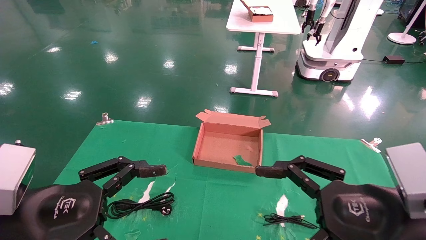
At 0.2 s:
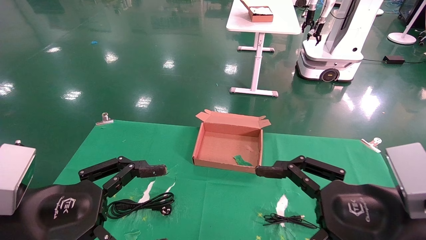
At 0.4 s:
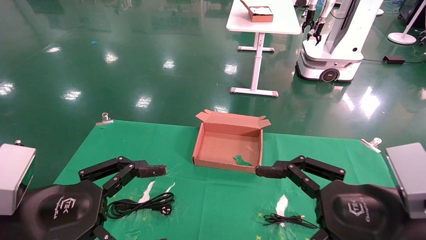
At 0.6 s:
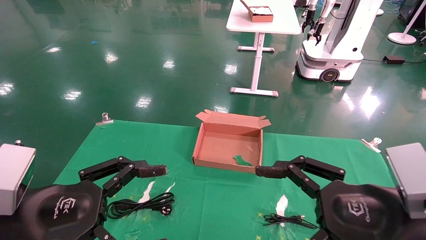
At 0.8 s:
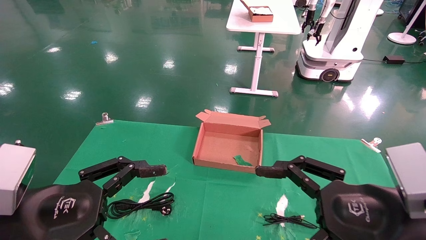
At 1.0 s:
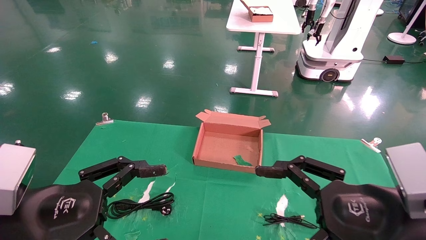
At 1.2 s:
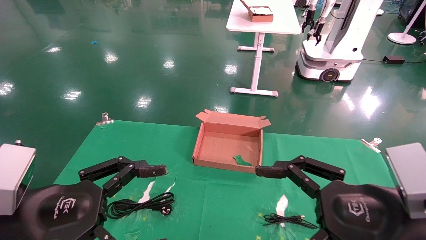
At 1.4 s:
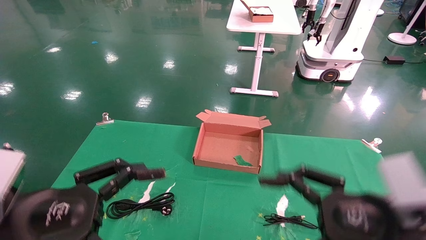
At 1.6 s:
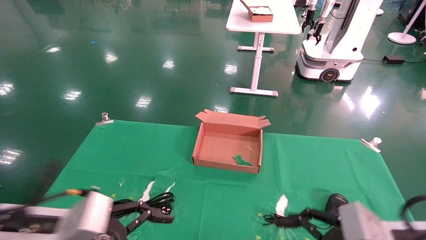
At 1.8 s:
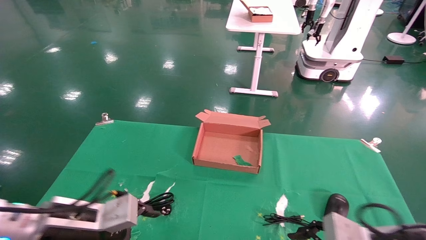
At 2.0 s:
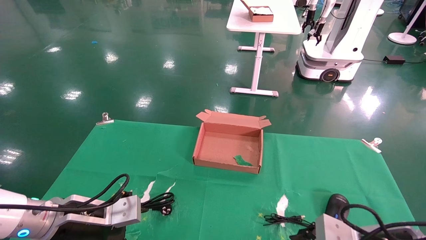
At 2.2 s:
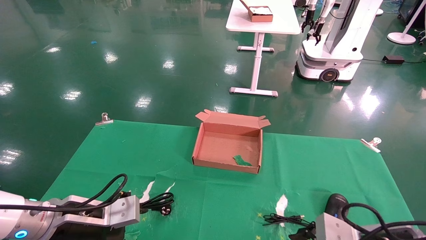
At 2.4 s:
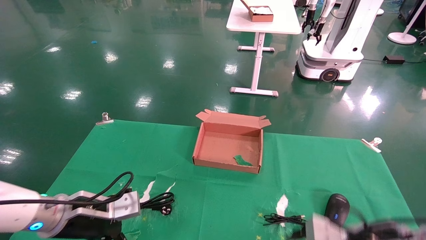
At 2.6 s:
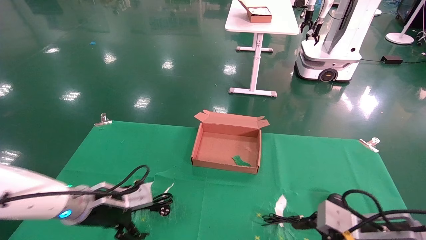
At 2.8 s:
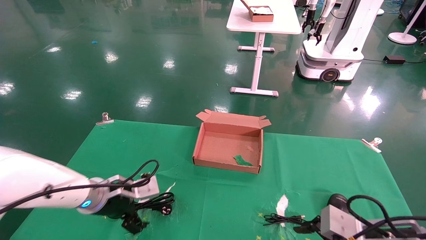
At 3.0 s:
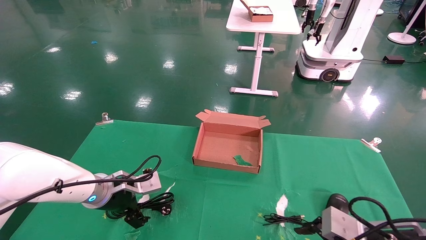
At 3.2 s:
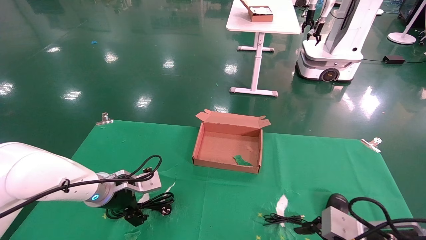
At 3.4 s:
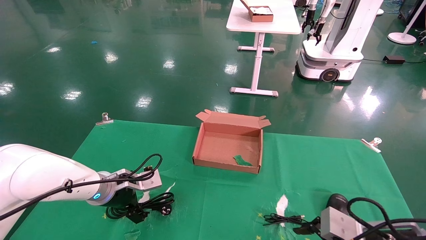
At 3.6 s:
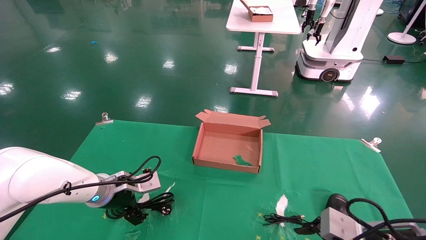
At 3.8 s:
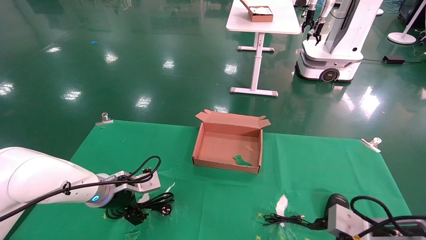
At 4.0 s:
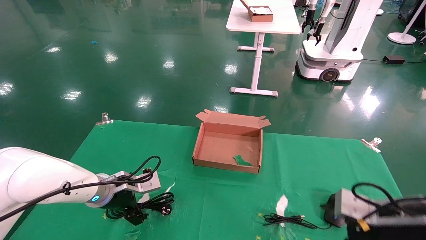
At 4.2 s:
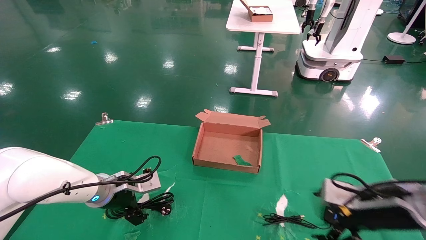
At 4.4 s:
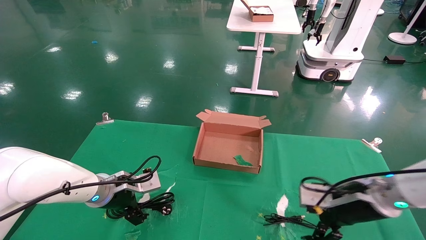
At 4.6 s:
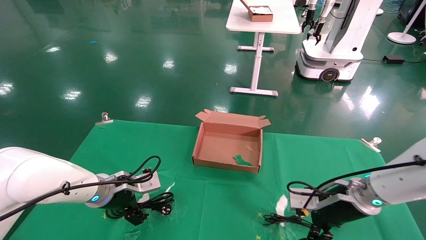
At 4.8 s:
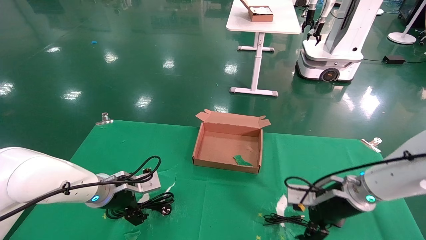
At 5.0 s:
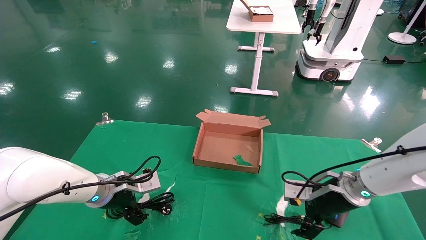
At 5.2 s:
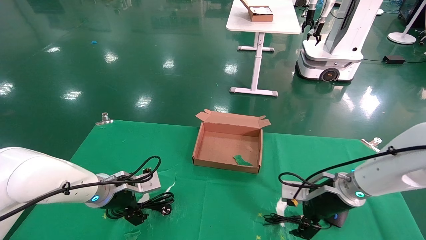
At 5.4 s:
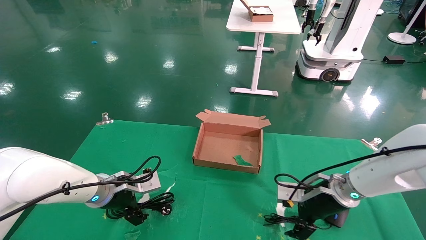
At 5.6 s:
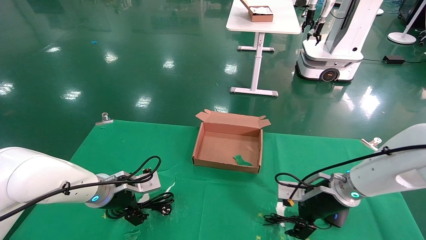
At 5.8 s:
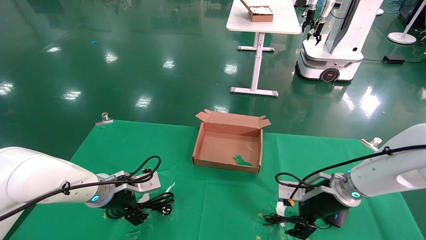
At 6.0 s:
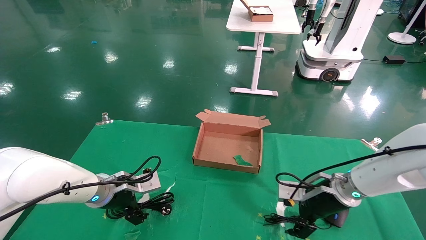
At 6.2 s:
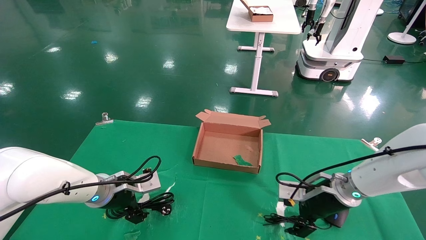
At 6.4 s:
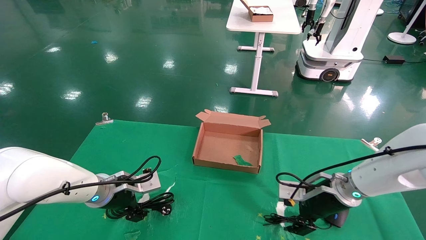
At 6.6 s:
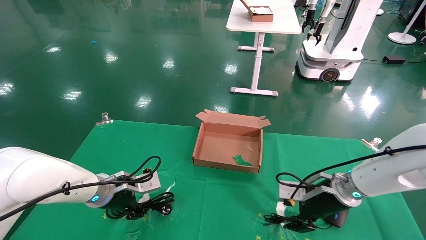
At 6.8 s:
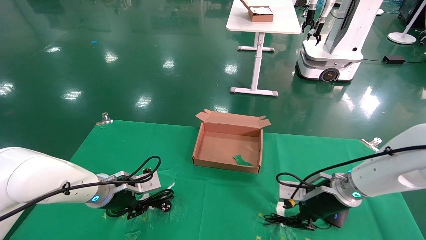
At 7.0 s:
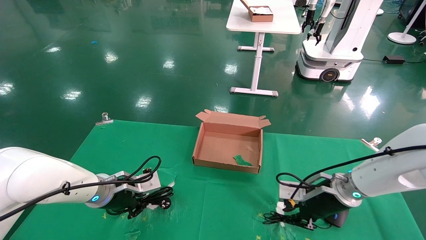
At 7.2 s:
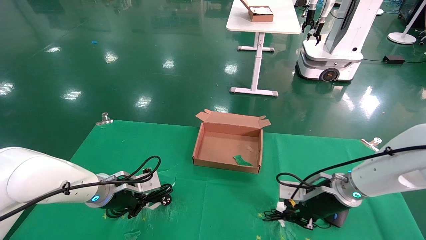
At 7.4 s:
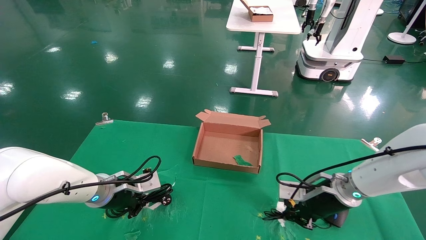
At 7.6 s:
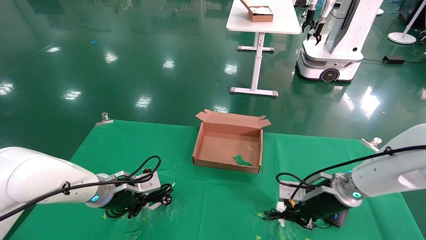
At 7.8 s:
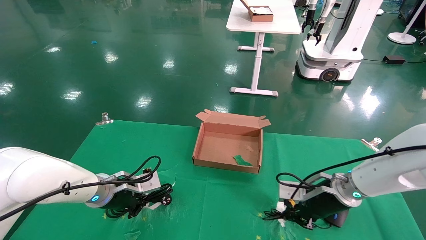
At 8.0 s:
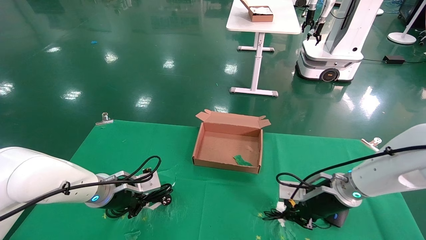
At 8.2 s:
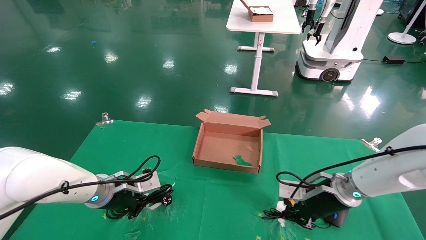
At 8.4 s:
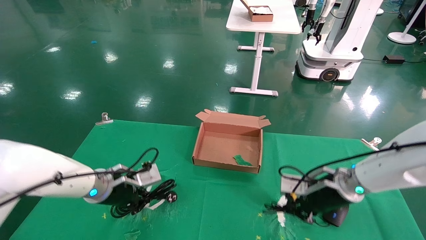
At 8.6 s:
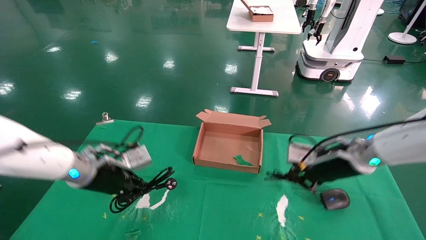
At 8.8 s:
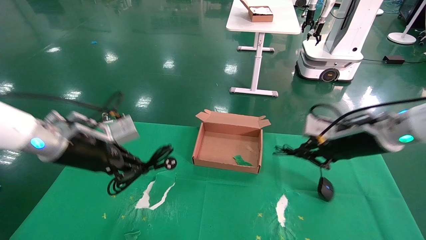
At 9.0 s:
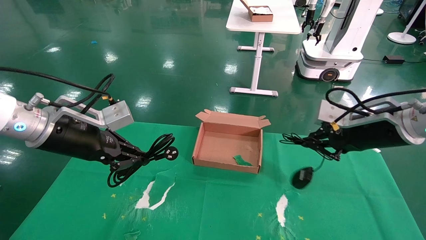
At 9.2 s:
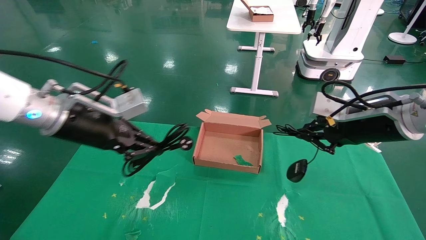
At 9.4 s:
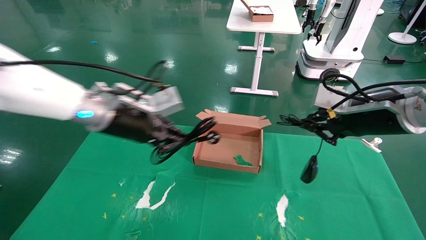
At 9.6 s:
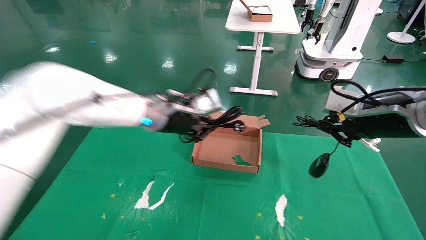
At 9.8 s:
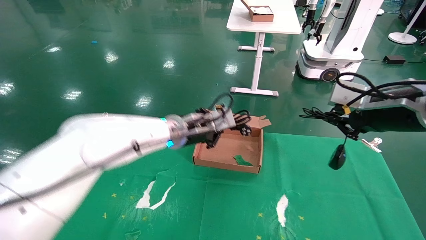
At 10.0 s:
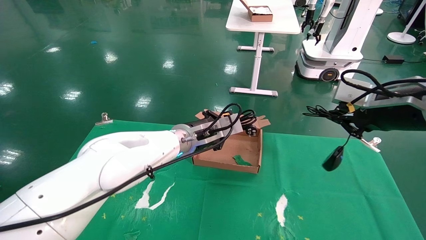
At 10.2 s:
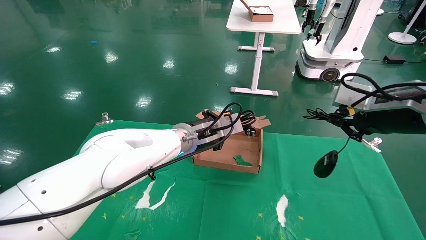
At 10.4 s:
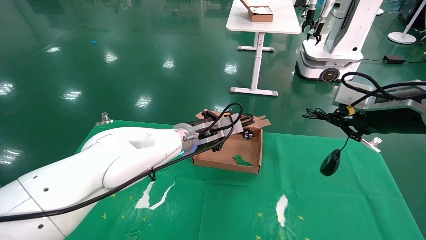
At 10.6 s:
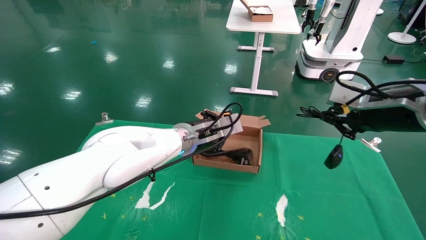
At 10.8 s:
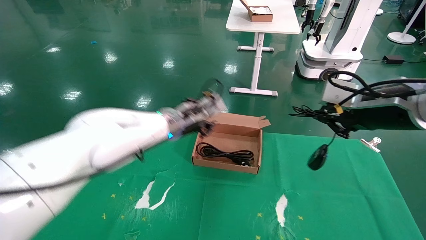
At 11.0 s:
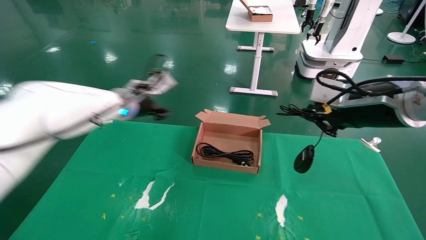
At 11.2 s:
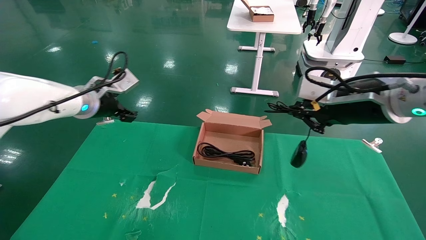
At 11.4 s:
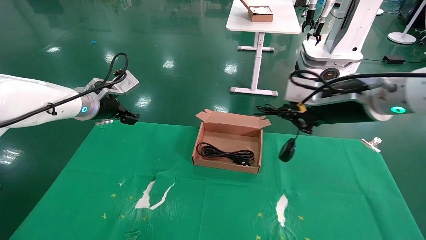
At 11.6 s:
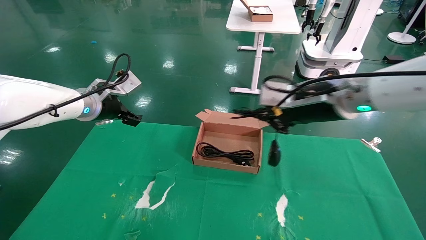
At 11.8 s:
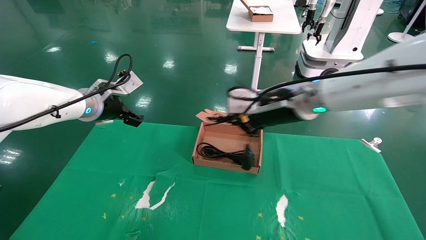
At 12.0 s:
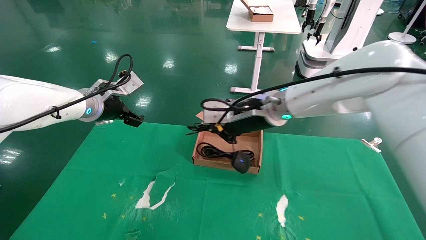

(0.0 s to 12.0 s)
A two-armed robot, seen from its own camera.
Step, 1.8 s - 8.8 s: Grab and lift both the mouse and power cord from the accessory packaging area at the same time.
0.0 s - 1.6 s: The right gripper goes about 5 cm downward. Meanwhile the left gripper heads downward and forward, covering approximately 10 cm.
1.6 s - 3.0 s: The left gripper goes approximately 15 cm forward, while the right gripper ends up some 5 cm from where it was.
3.0 s - 4.4 s: The right gripper heads forward, covering approximately 10 cm.
4.4 s - 6.0 s: The right gripper shifts approximately 5 cm forward.
6.0 s - 7.6 s: The right gripper closes up, while the left gripper closes.
7.6 s - 9.0 s: Both grippers move upward, some 15 cm.
9.0 s - 10.4 s: The right gripper moves about 5 cm. The left gripper travels to the right and forward by approximately 25 cm.
10.4 s - 12.0 s: The right gripper shifts some 25 cm to the left and forward, while the left gripper goes approximately 20 cm to the left, and opens.

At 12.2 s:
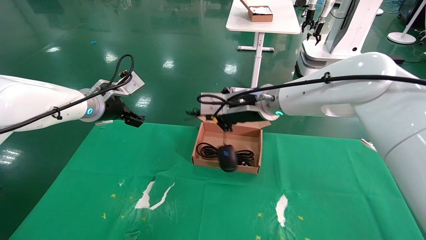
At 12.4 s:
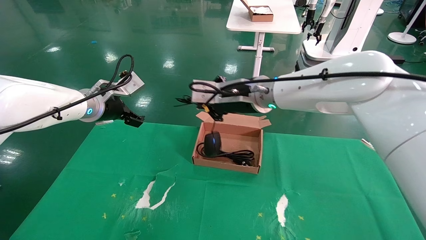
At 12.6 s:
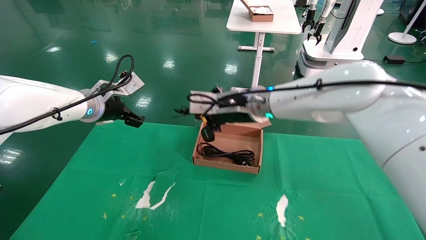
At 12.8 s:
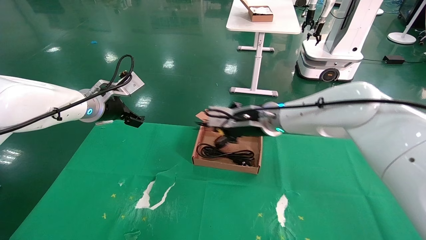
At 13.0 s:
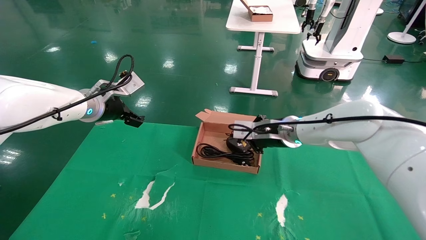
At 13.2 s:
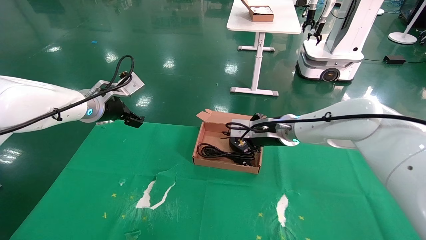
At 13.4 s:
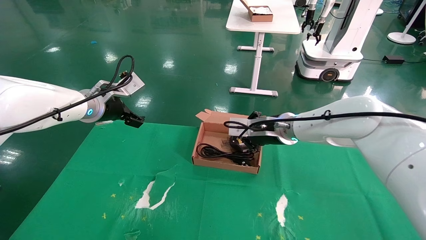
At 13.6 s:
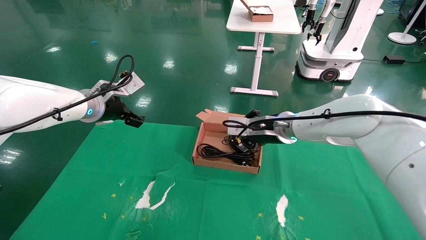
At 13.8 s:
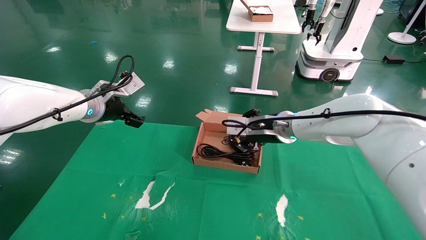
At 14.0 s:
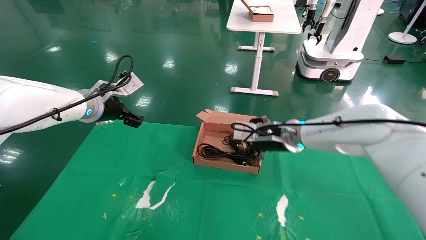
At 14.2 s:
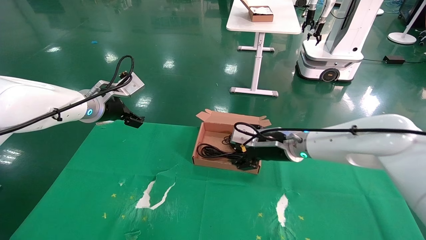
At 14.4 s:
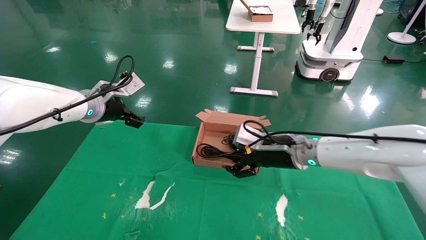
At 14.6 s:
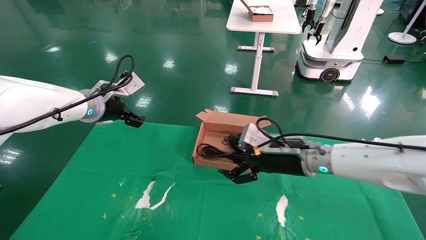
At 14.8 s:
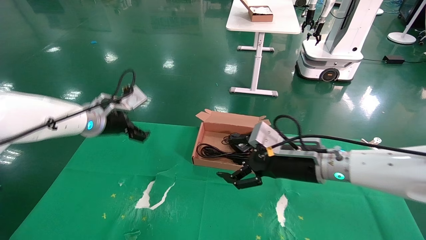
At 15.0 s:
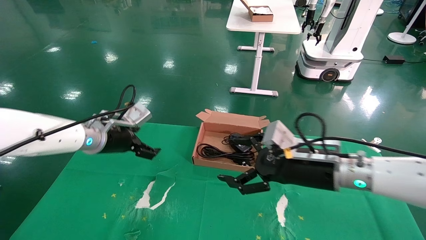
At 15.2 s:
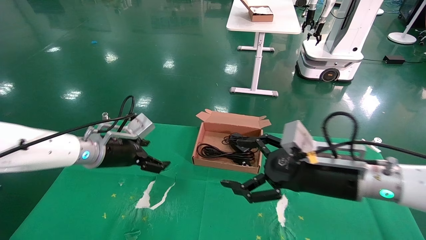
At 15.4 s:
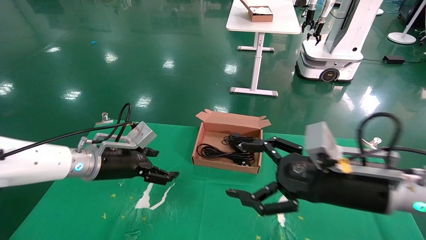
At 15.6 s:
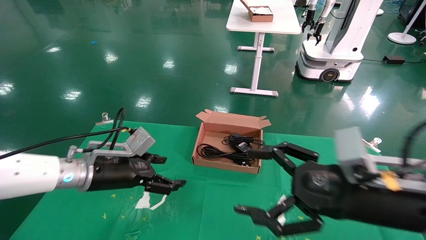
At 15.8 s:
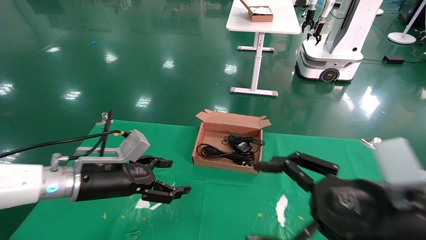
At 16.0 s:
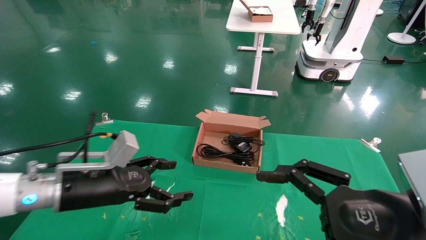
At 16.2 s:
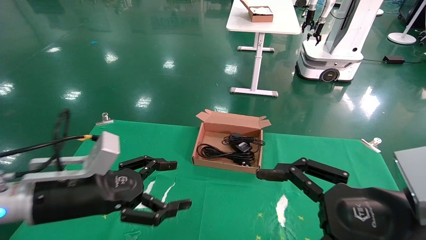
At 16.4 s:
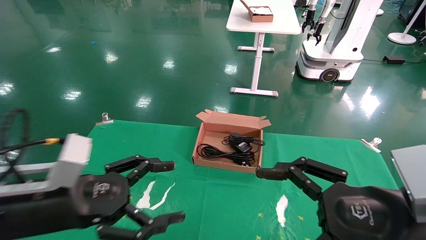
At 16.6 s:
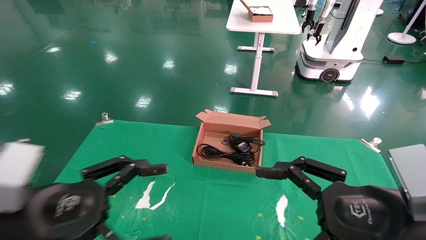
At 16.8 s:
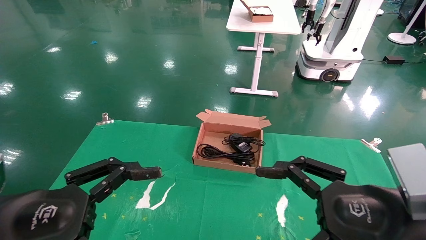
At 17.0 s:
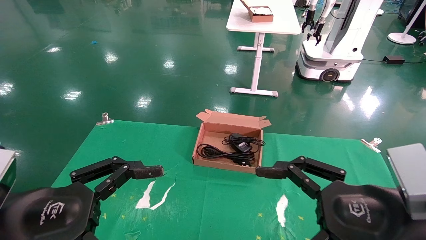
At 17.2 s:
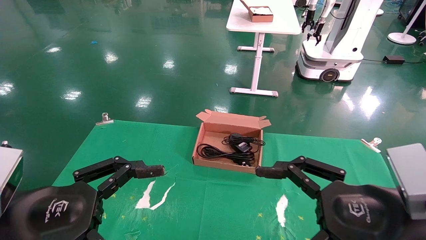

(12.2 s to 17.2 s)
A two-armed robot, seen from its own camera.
12.2 s - 13.8 s: The right gripper moves downward and to the right, some 10 cm.
13.8 s - 15.6 s: The left gripper shifts about 15 cm downward and backward. The right gripper heads backward and to the right, covering roughly 25 cm, and opens.
15.6 s - 17.2 s: The right gripper changes place by roughly 5 cm. The left gripper is displaced backward by some 20 cm.
